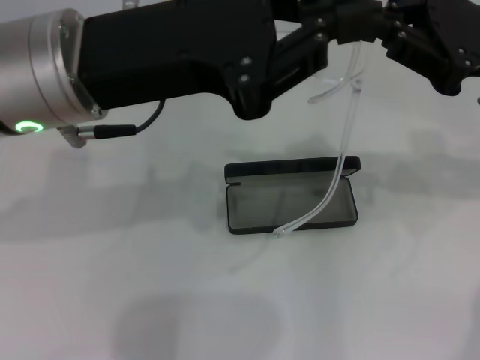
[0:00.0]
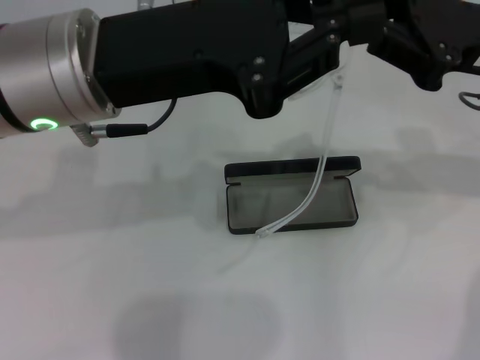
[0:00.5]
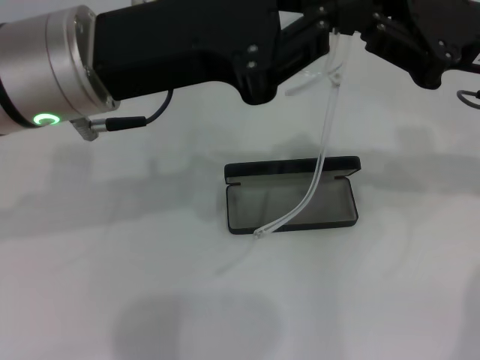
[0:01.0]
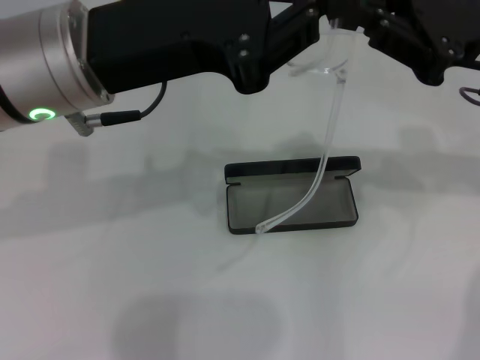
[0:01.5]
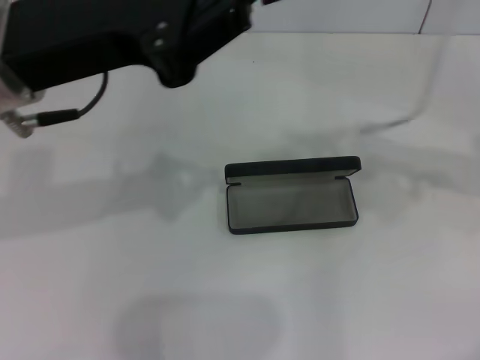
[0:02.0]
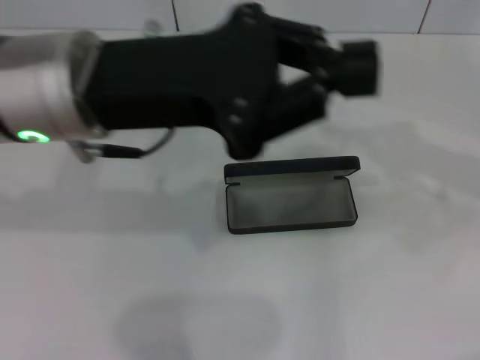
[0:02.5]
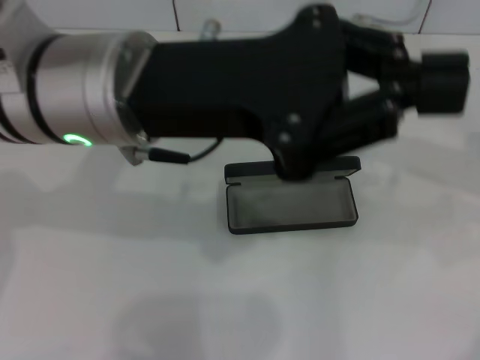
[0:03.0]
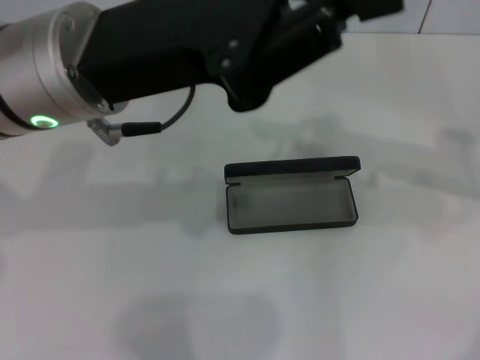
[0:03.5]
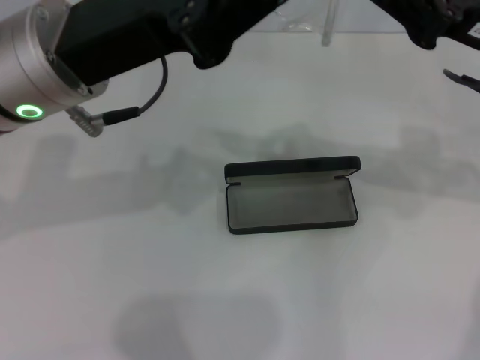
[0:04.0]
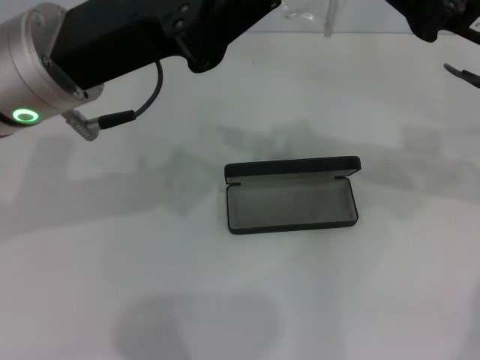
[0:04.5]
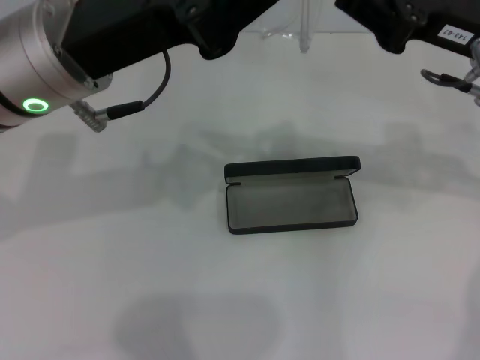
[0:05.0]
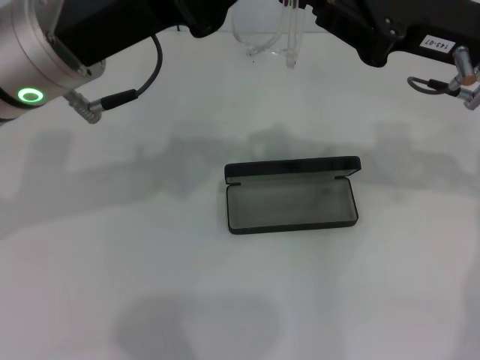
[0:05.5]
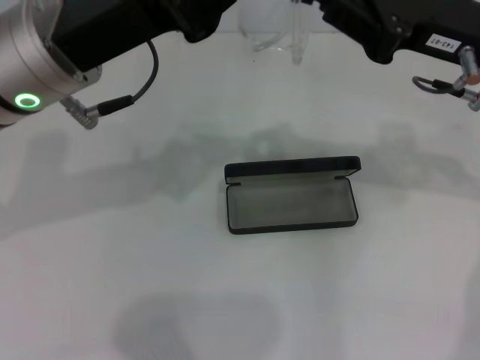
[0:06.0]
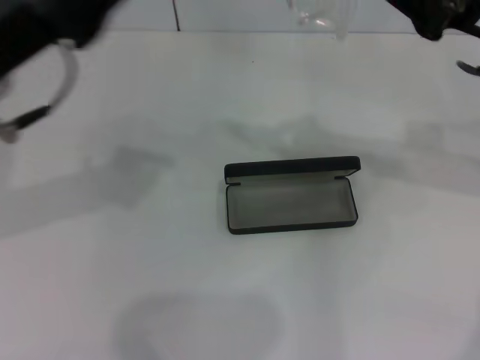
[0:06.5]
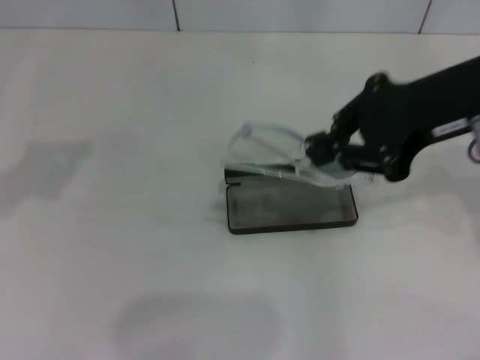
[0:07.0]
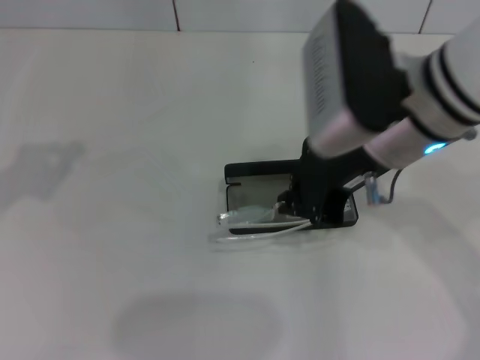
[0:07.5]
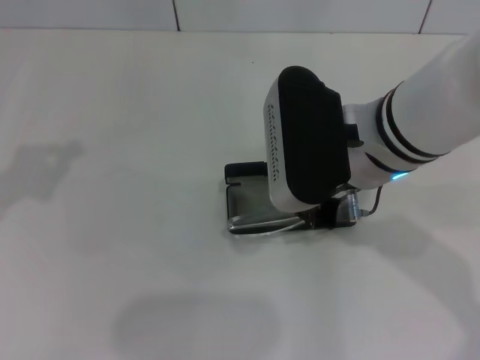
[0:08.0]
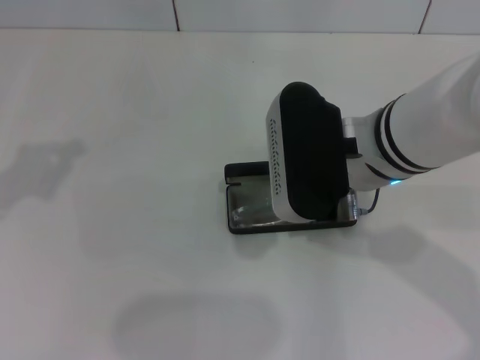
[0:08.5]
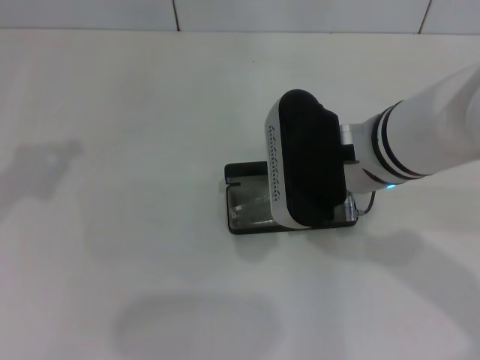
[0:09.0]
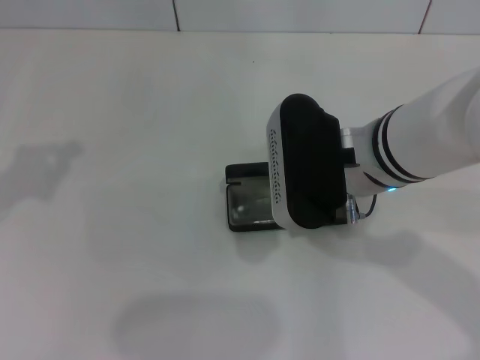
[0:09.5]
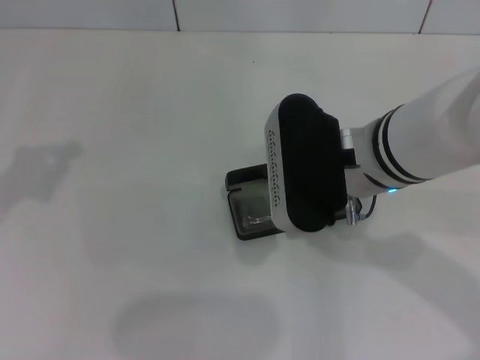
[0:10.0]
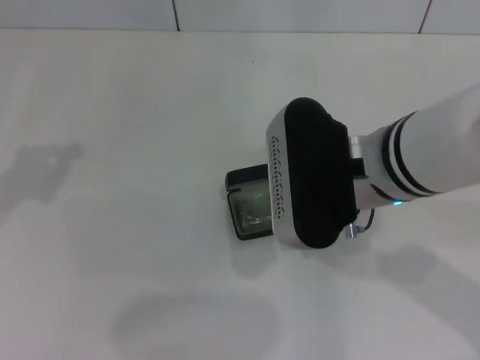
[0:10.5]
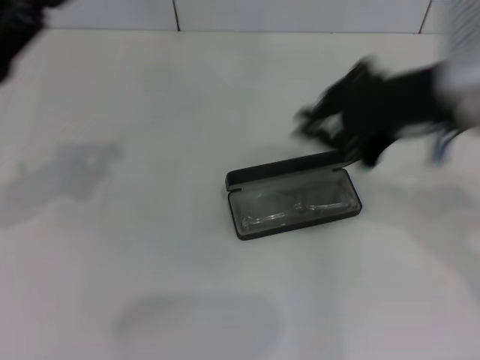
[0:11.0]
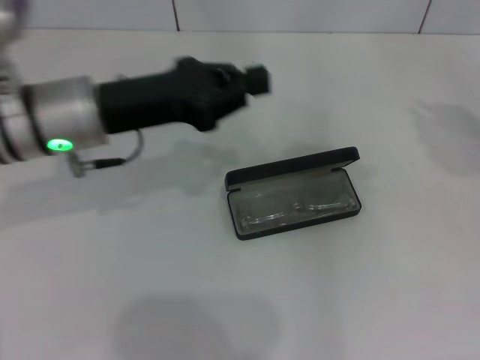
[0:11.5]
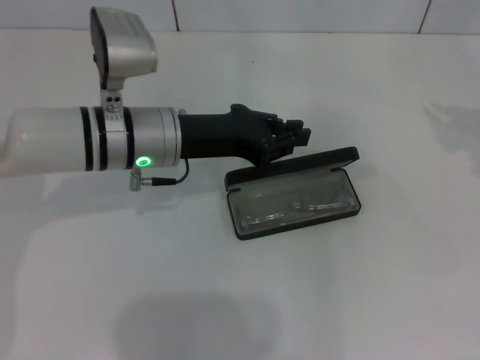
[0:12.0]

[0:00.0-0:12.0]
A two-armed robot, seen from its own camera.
Step, 0:00.0 to 0:05.5: Fold the frame with your left hand.
Step, 0:06.0 to 0:09.5: Put the glasses into the case with your right hand.
0:00.0 to 0:02.0: The right gripper heads to the right, covering about 5 cm.
0:02.0 to 0:04.0: The right gripper is displaced to the left by some 10 cm.
0:04.0 to 0:06.0: There are only small adjustments of the grippers.
0:06.0 to 0:08.0: Both grippers travel together to the left, some 15 cm.
0:08.0 to 0:10.0: The grippers make only small movements.
0:10.0 to 0:12.0: The right gripper goes approximately 30 cm to the right. Meanwhile the left gripper moves to the right, forward and downward, some 25 cm.

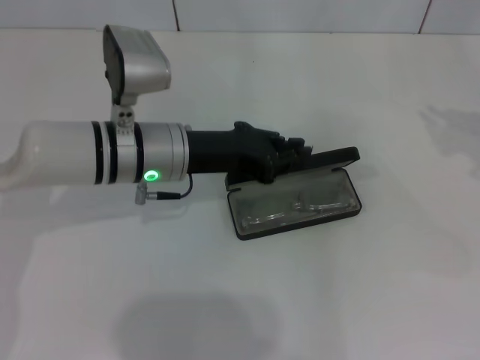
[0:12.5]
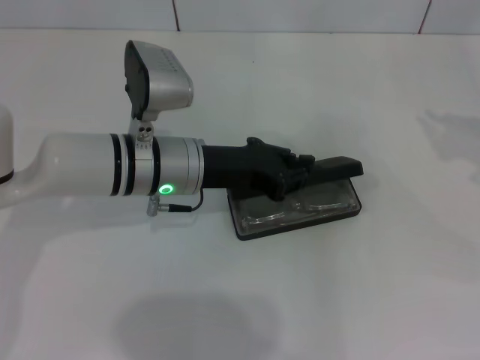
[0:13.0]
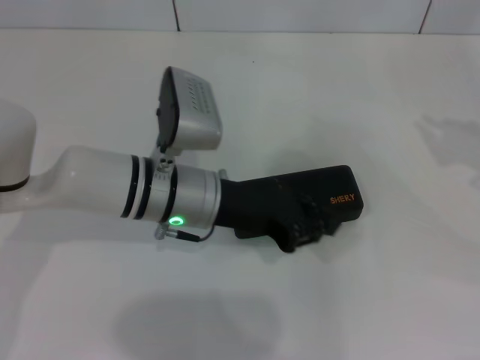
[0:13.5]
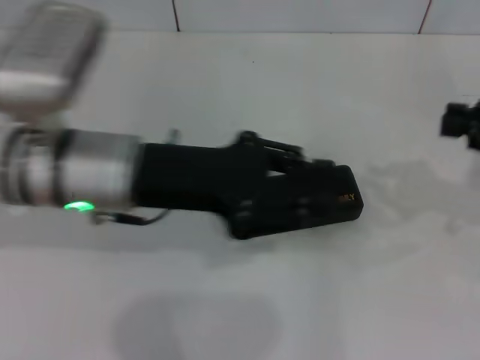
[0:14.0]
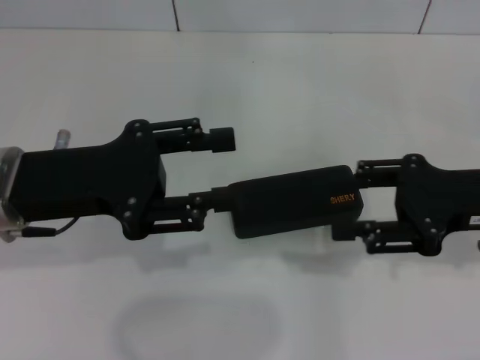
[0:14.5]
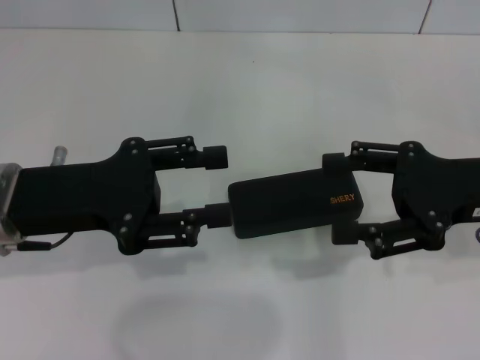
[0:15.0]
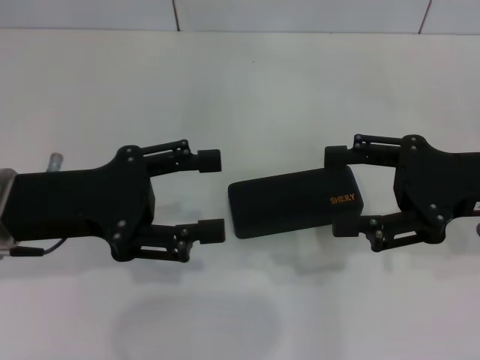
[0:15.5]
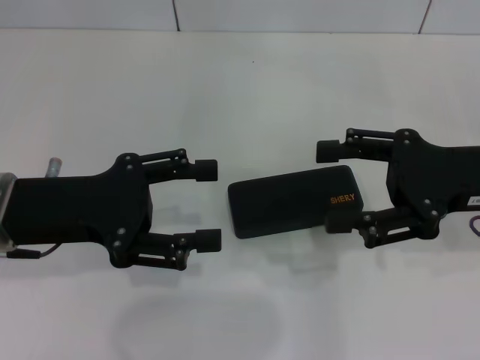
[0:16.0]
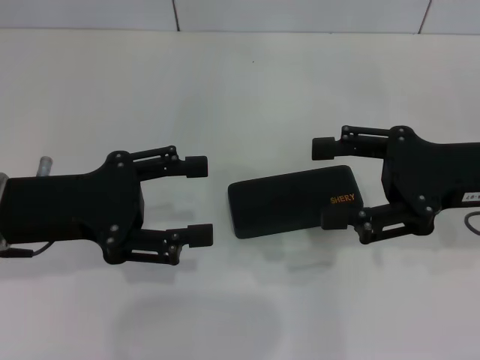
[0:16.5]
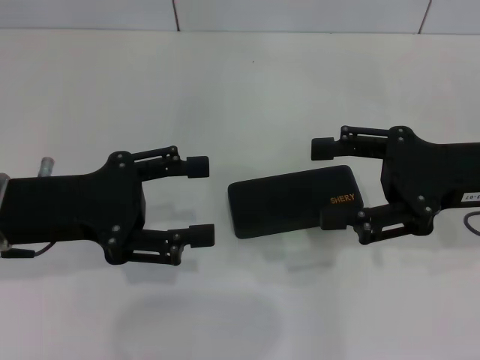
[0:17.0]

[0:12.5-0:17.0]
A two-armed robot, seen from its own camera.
0:12.5 to 0:14.5: The right gripper goes roughly 15 cm to the left and downward; the left gripper travels to the left, backward and upward by some 15 cm, and opens up.
0:14.5 to 0:17.0: The right gripper opens its fingers.
